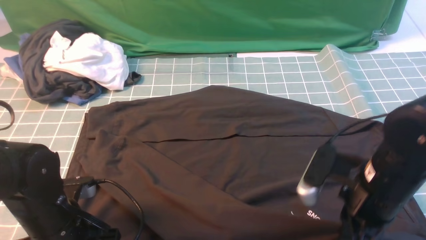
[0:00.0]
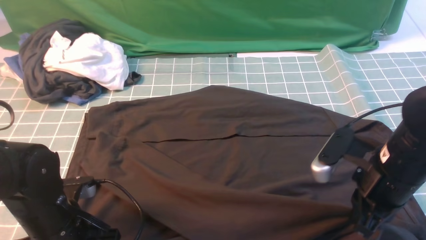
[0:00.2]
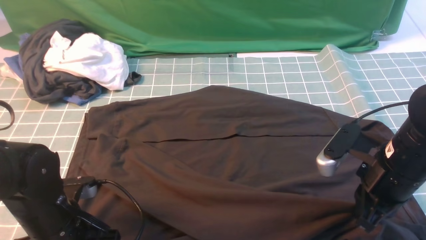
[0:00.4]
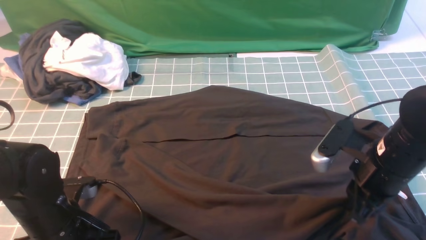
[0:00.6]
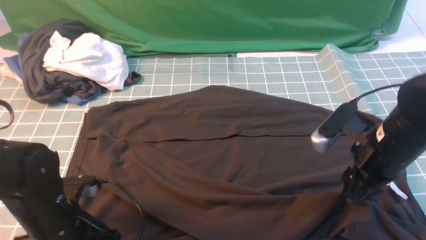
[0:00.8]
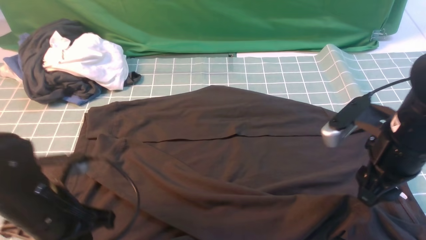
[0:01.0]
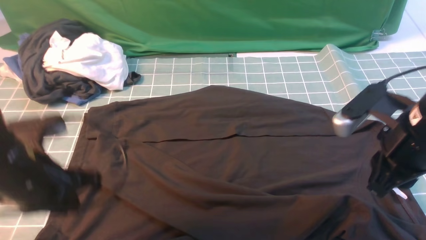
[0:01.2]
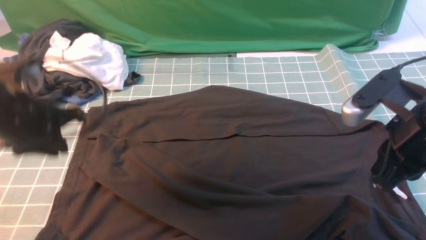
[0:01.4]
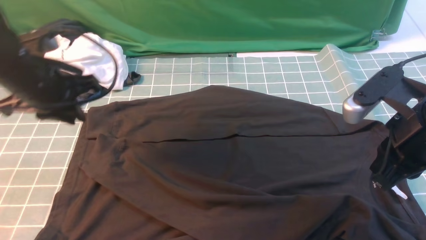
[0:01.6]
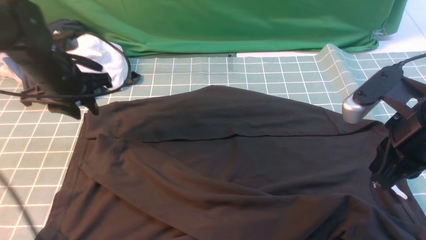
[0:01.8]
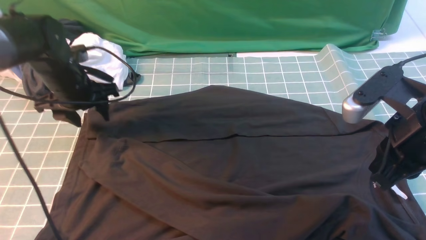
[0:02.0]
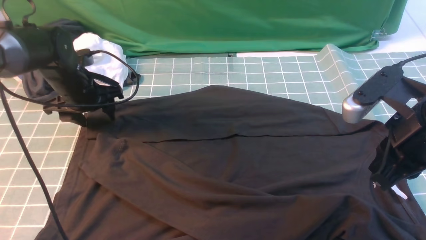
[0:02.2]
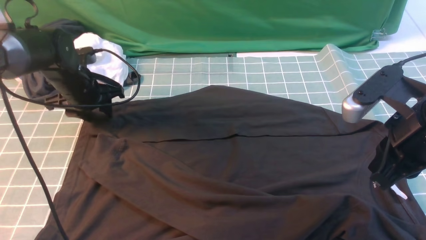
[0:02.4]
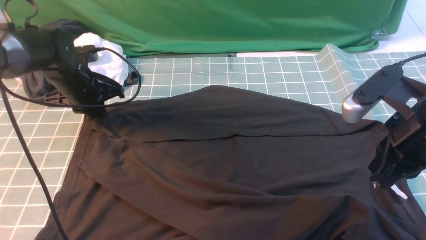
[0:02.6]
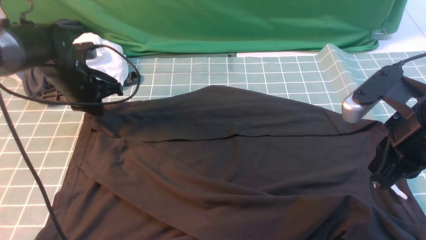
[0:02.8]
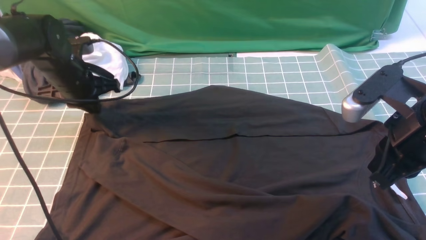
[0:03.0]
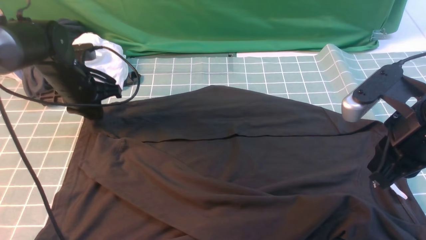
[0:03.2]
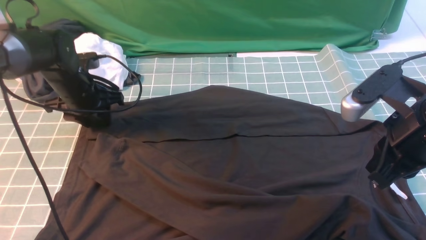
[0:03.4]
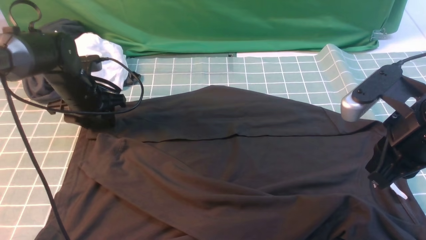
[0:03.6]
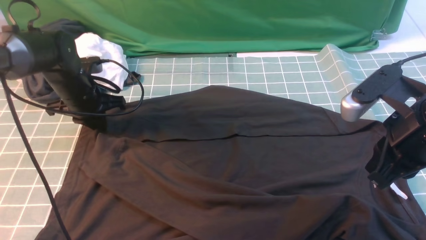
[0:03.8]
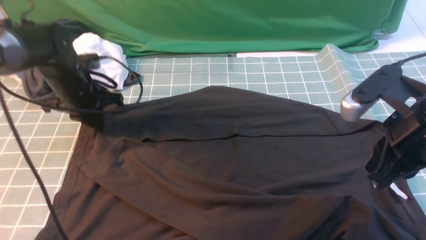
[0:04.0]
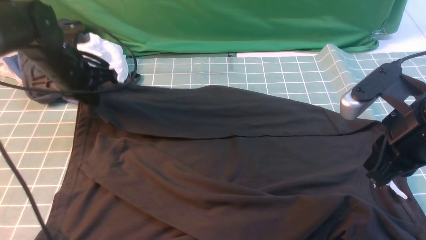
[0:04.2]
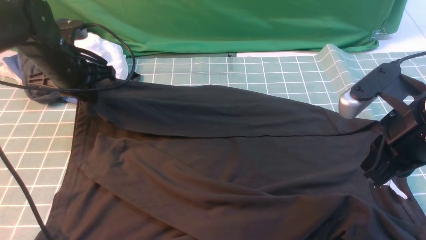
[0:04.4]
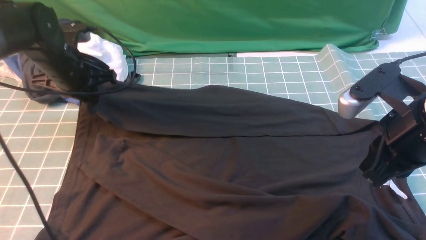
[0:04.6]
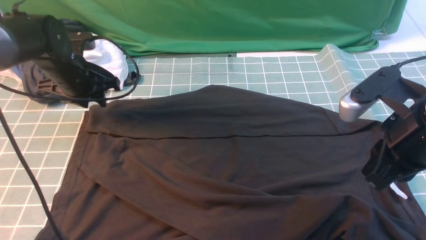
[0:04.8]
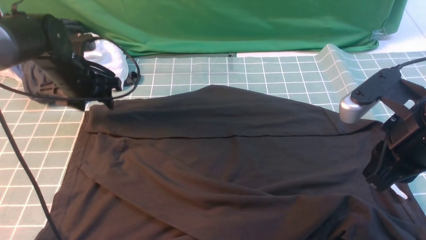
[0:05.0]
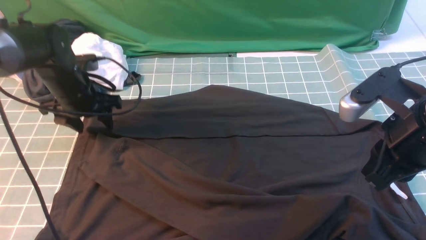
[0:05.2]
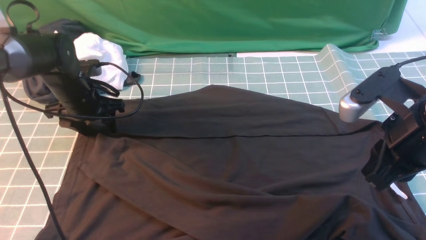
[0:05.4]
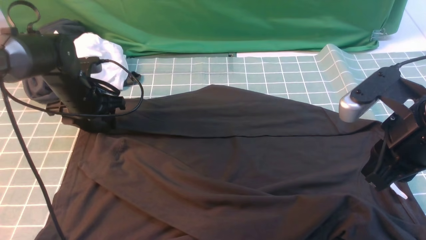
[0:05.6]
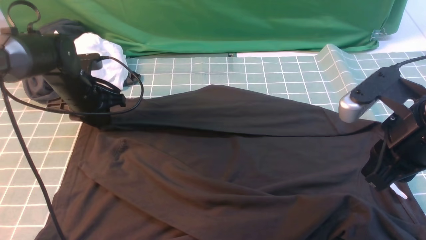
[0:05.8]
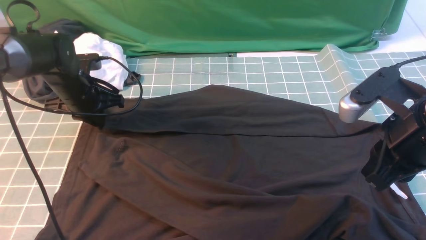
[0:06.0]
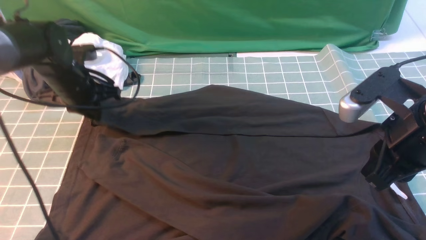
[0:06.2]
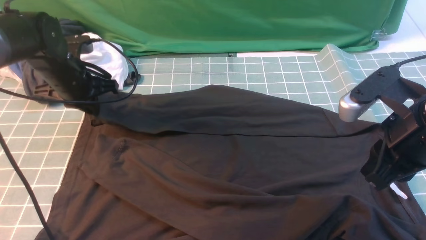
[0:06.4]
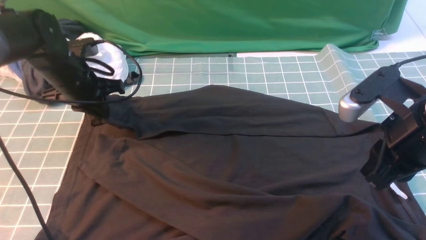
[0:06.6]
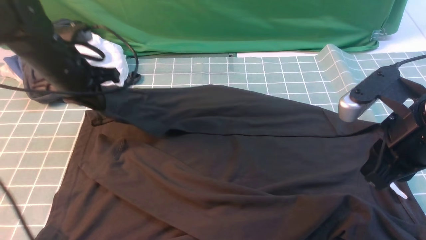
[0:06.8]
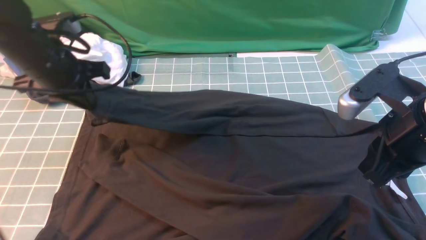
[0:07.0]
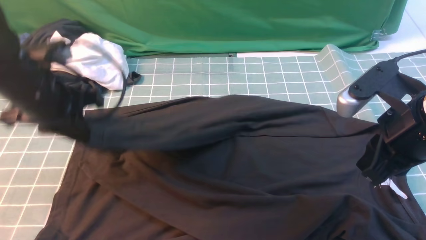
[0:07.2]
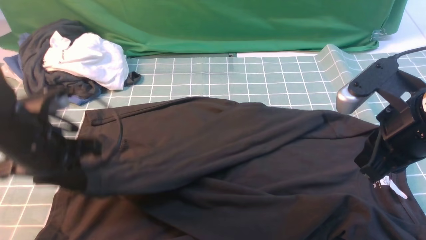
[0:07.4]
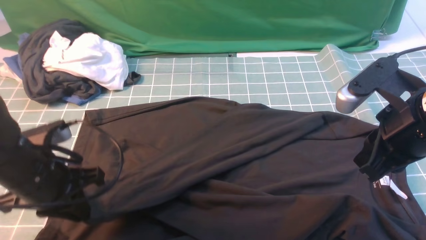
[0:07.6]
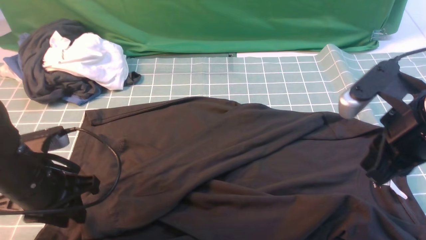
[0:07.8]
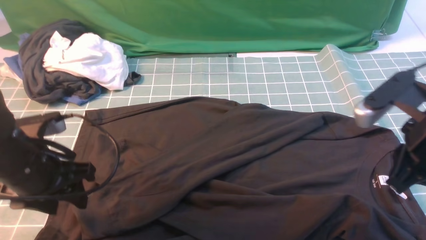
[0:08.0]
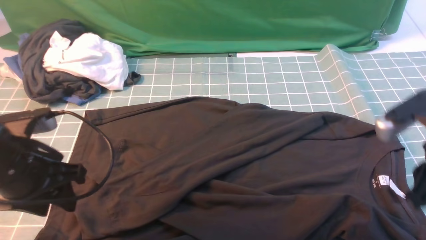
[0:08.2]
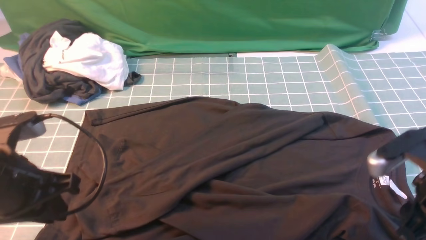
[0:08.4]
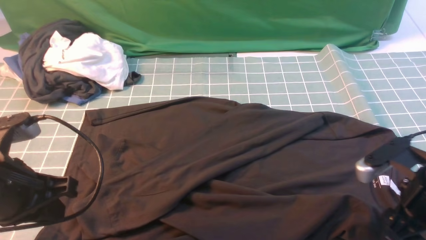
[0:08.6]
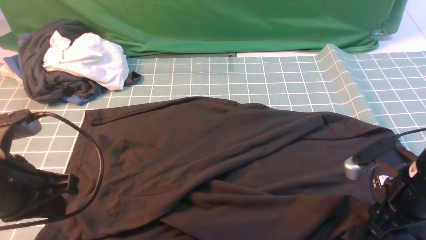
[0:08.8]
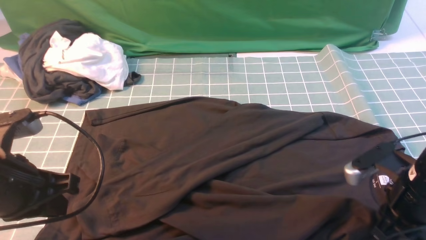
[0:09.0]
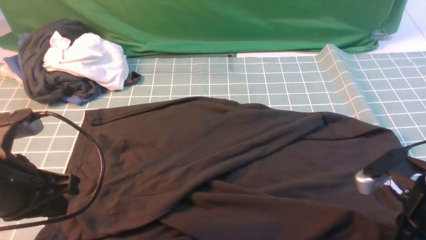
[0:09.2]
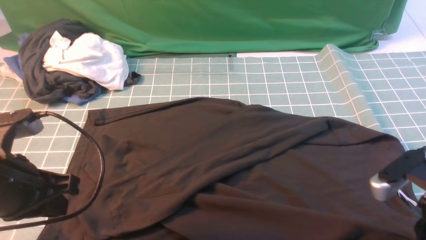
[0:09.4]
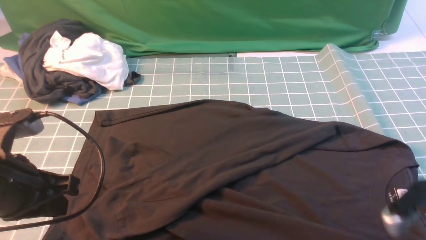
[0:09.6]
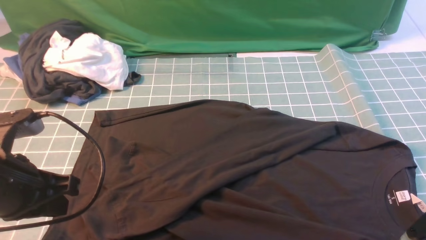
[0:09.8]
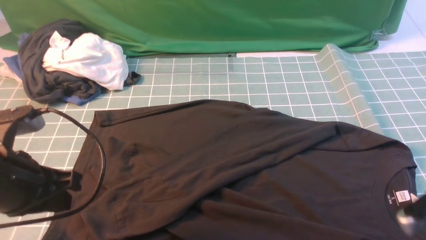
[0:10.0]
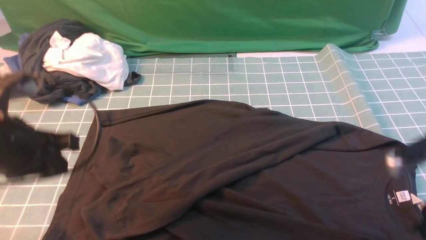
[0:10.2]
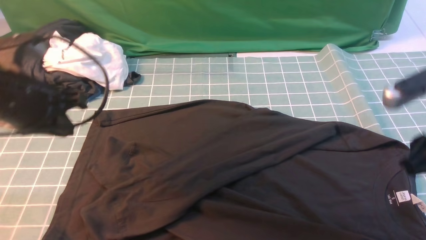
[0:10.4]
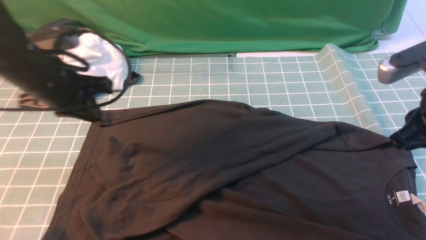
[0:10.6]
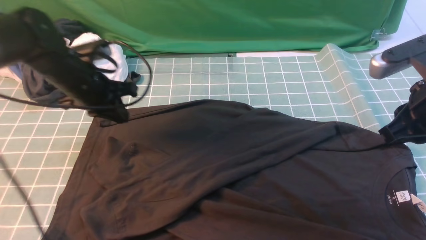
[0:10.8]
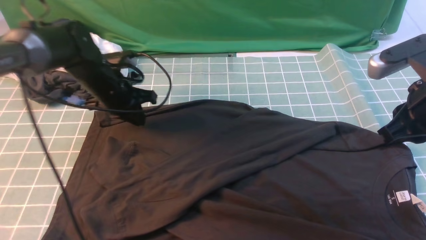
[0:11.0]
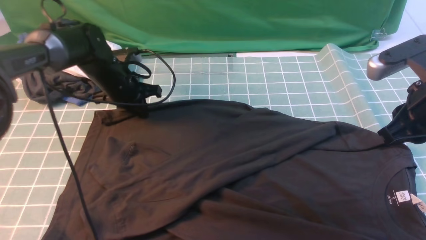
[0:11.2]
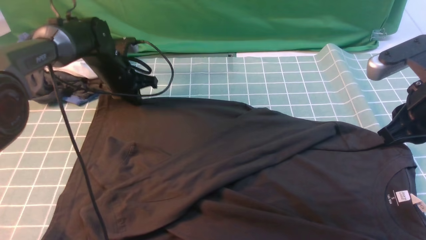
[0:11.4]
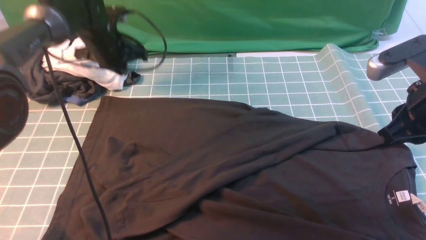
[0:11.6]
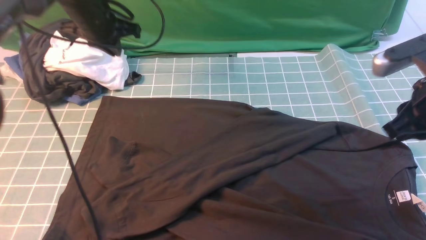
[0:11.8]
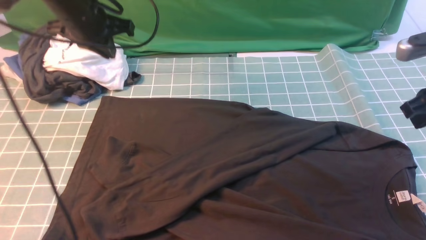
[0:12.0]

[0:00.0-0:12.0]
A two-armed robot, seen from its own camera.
Step, 0:00.0 to 0:03.0: use the left arm to clamp the cuff farthest from it.
Step, 0:03.2 to 0:07.8: use the left arm to drag and drop the cuff onto the cuff closest to the left arm.
0:00.0 to 0:01.6: The right gripper heads upward, covering some 10 cm, and opens, then closes once more, while the left gripper travels forward and upward by about 20 cm.
0:01.6 to 0:03.0: The left gripper shifts some 10 cm forward and downward, and opens, then closes once more.
0:03.0 to 0:04.4: The left gripper opens, then closes once more.
0:04.4 to 0:06.0: The left gripper moves downward, some 5 cm, and opens and closes again.
0:06.0 to 0:07.6: The left gripper goes about 20 cm backward.
0:07.6 to 0:09.0: The left gripper shifts about 5 cm backward and upward, and opens, then closes once more; the right gripper moves downward, roughly 10 cm, and opens and closes again.
0:09.0 to 0:10.4: The right gripper shifts about 10 cm upward; the left gripper moves forward, some 10 cm.
0:10.4 to 0:12.0: The left gripper moves forward, some 15 cm; the right gripper is displaced forward by roughly 10 cm.

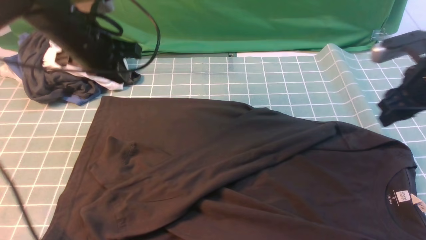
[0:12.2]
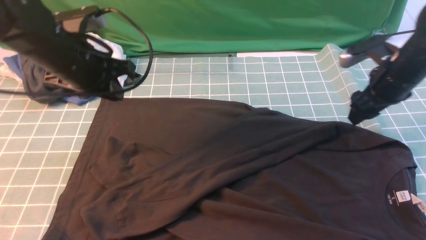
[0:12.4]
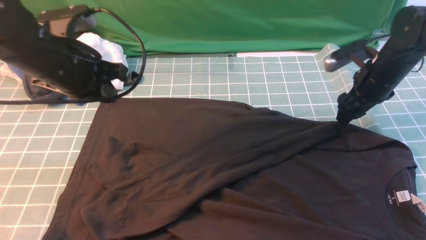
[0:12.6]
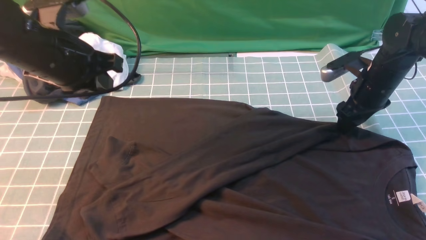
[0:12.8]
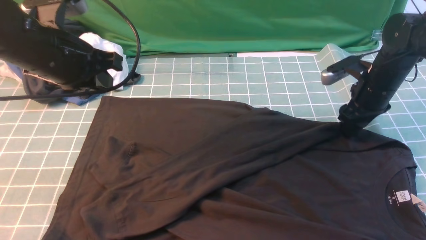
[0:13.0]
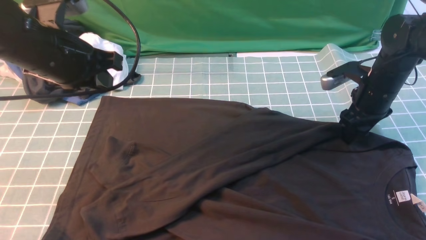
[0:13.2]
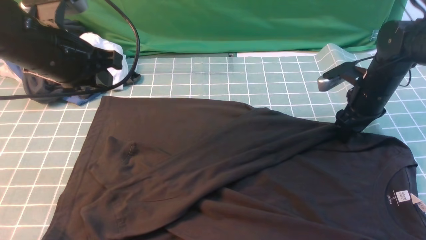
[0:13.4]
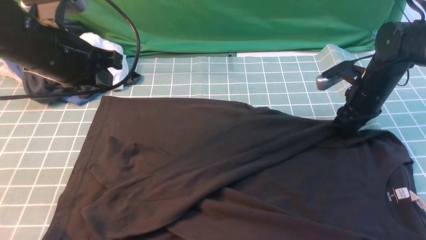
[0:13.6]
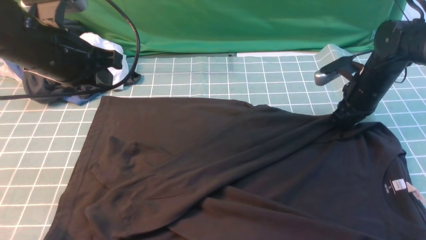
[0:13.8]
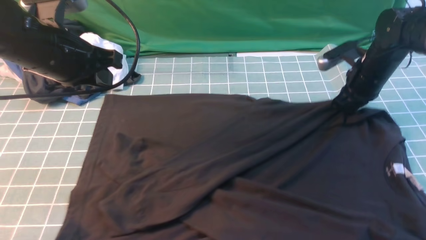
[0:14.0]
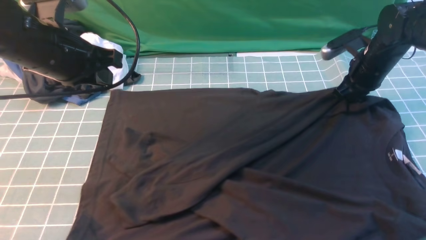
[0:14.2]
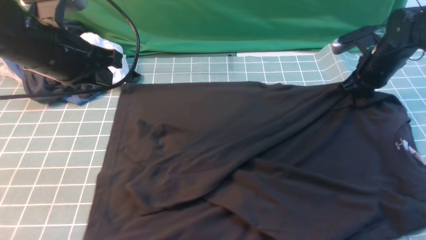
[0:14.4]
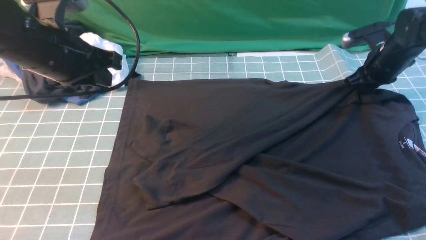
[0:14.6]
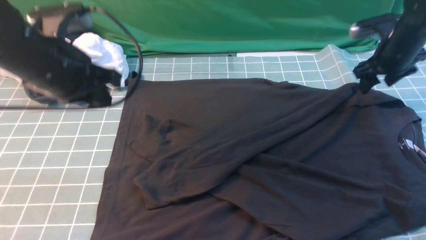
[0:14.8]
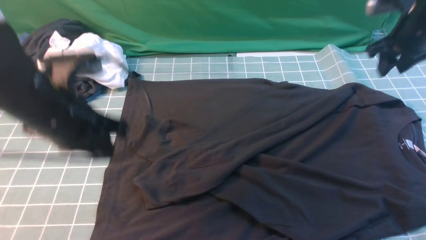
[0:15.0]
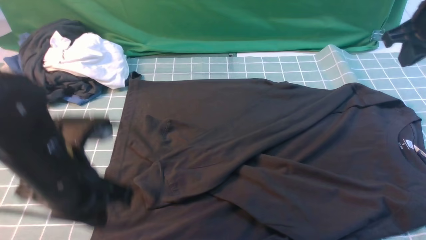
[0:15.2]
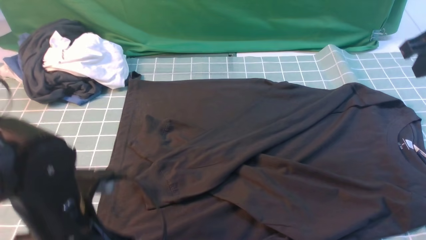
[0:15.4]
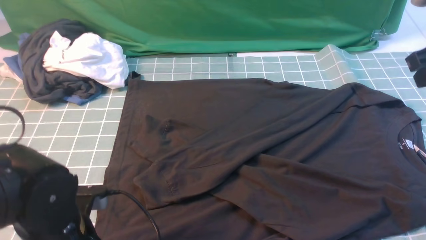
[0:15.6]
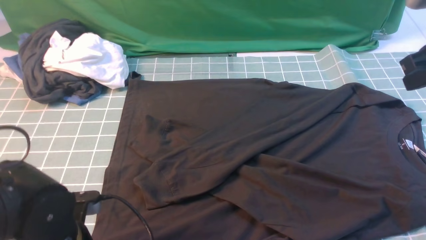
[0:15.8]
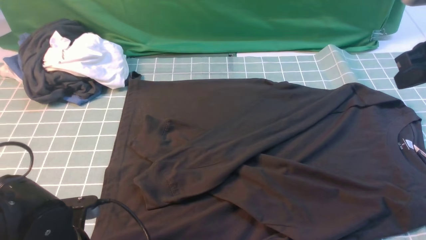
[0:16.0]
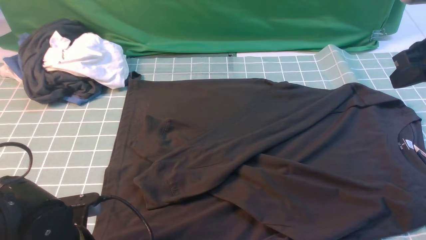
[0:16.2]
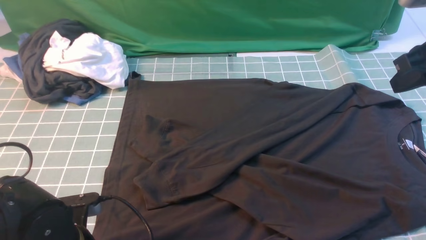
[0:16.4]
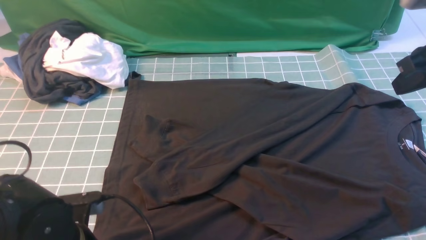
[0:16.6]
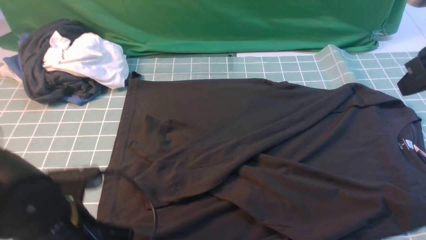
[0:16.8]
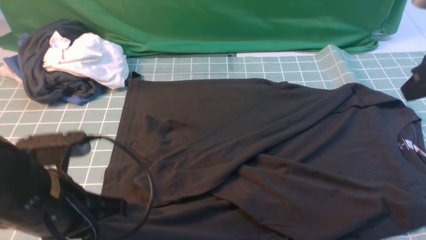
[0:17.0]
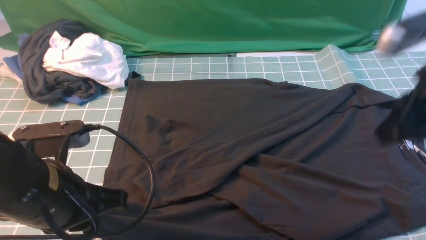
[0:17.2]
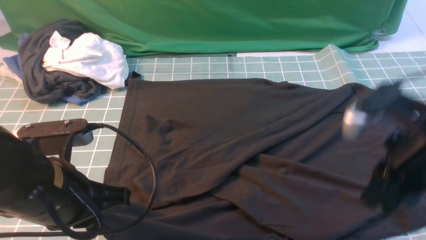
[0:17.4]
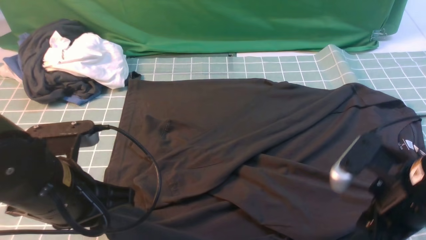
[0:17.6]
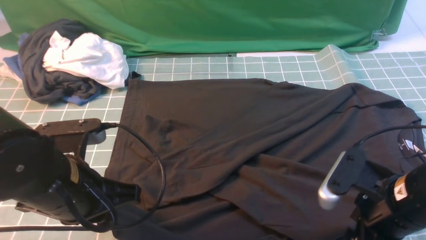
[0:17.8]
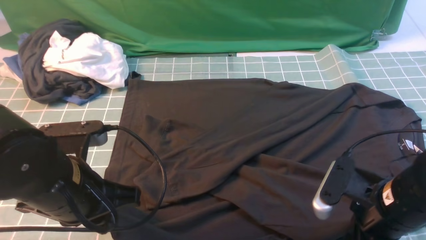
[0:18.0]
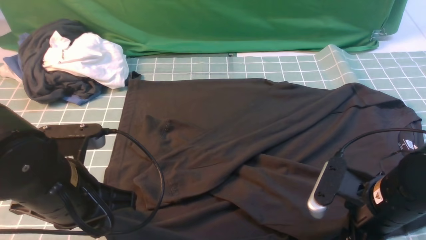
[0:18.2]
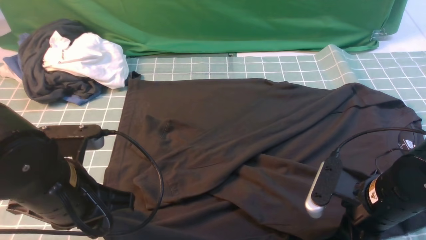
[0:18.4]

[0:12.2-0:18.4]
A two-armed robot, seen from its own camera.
Step, 0:12.2 to 0:18.4: use both arms simultaneously to clamp the lower edge of the clothing fabric.
0:12.2 to 0:13.8: The right gripper heads downward and forward, covering roughly 10 cm, and closes. The left gripper goes approximately 5 cm backward.
0:13.8 to 0:15.4: The left gripper is displaced backward and downward by roughly 20 cm. Meanwhile the right gripper travels upward and backward by some 20 cm, and opens, then closes again.
0:15.4 to 0:16.8: The left gripper opens and closes again; the right gripper is displaced backward by about 5 cm.
0:16.8 to 0:18.4: The left gripper shifts by roughly 5 cm. Meanwhile the right gripper moves downward, backward and to the left, approximately 20 cm, and opens, then closes once more.
